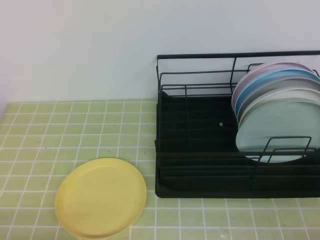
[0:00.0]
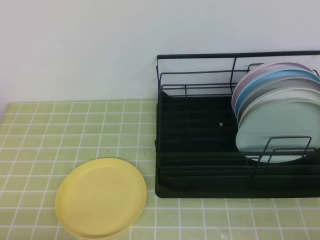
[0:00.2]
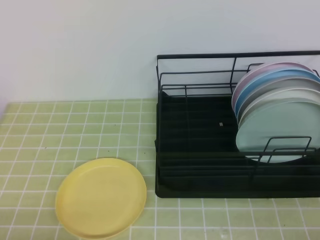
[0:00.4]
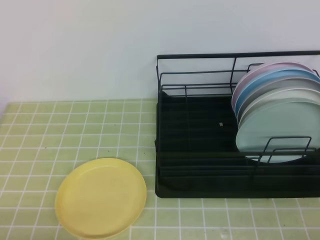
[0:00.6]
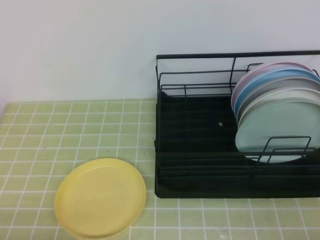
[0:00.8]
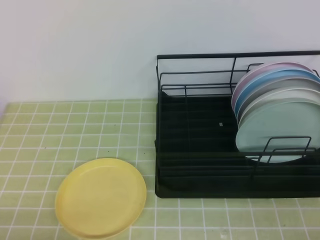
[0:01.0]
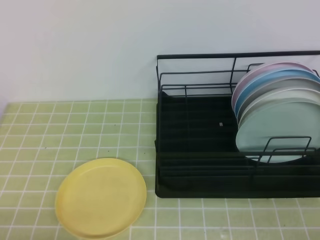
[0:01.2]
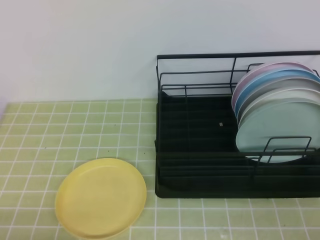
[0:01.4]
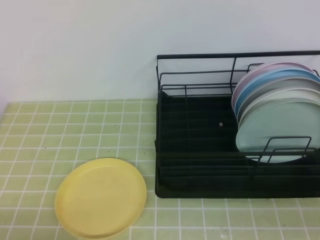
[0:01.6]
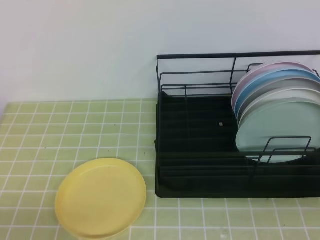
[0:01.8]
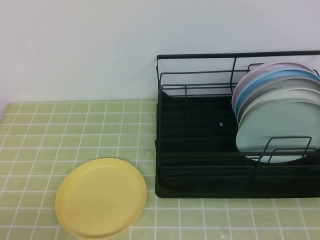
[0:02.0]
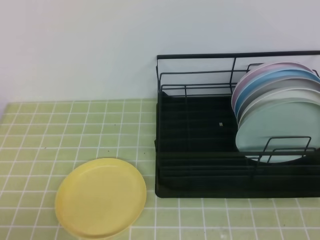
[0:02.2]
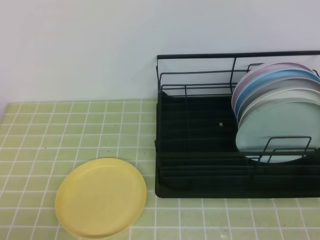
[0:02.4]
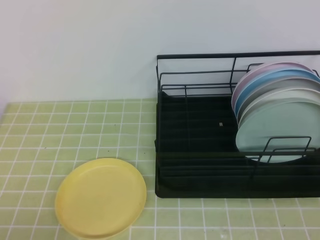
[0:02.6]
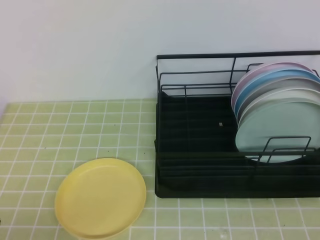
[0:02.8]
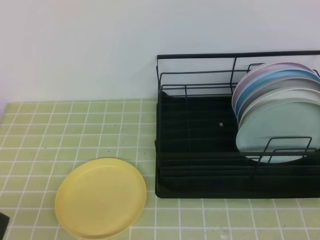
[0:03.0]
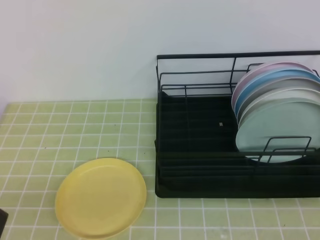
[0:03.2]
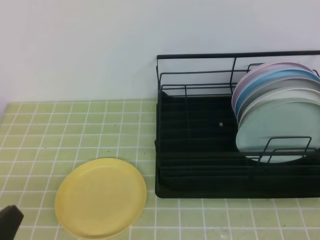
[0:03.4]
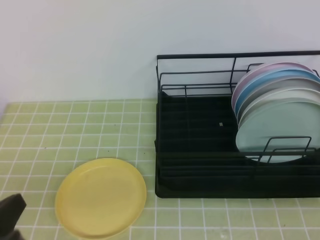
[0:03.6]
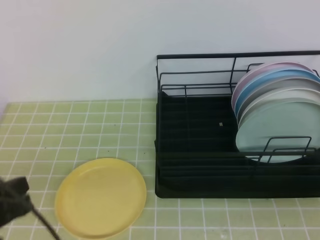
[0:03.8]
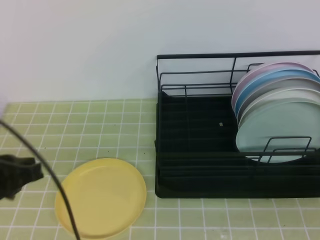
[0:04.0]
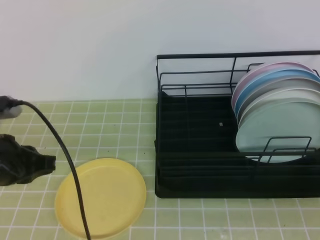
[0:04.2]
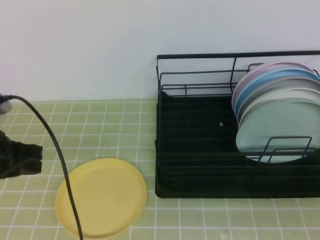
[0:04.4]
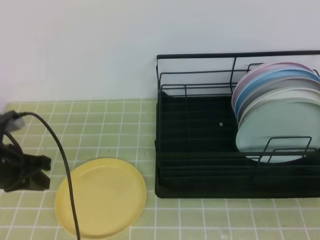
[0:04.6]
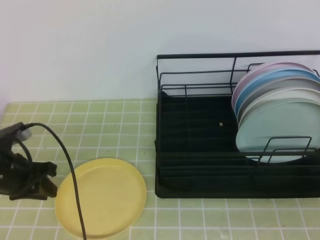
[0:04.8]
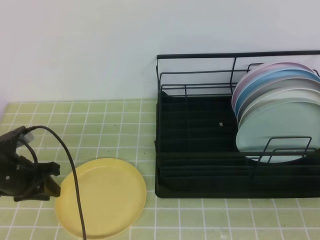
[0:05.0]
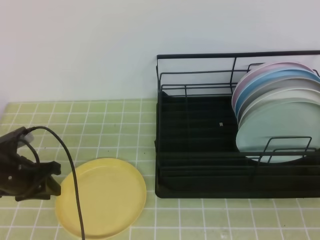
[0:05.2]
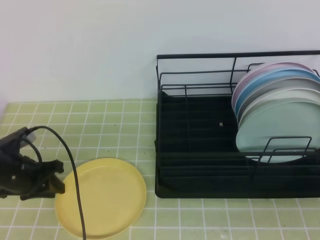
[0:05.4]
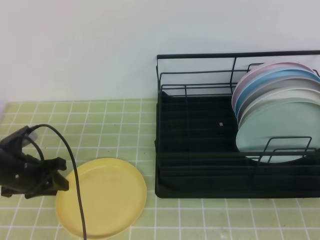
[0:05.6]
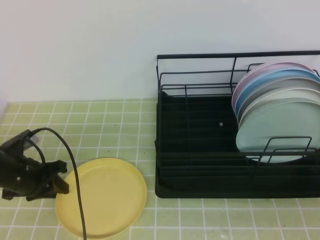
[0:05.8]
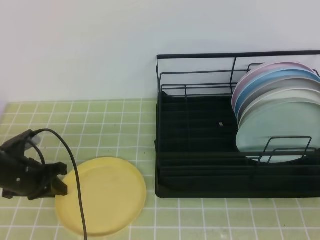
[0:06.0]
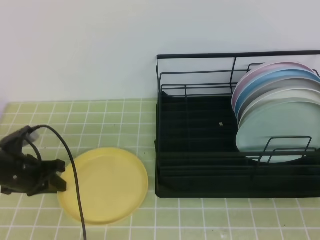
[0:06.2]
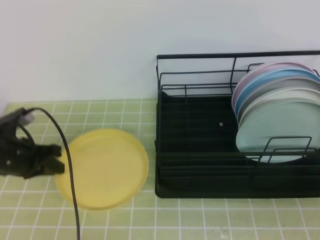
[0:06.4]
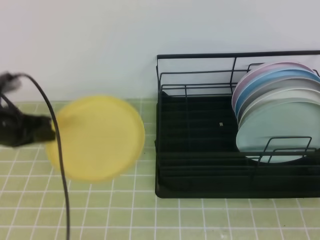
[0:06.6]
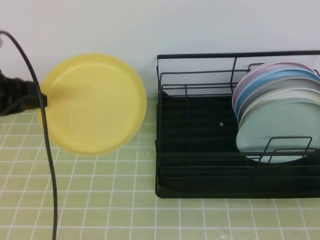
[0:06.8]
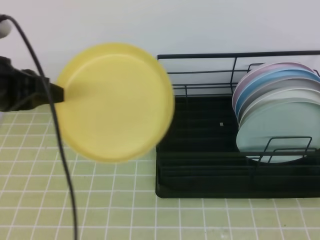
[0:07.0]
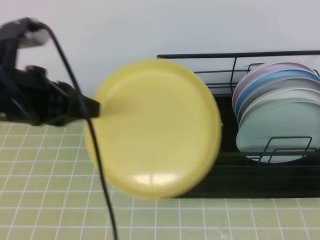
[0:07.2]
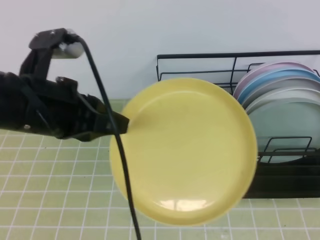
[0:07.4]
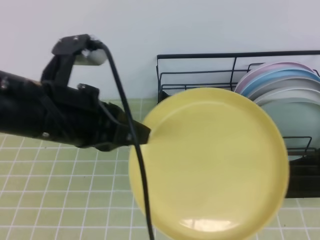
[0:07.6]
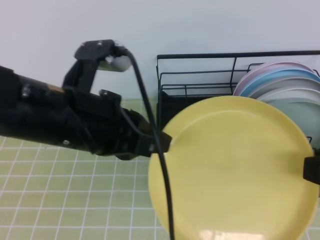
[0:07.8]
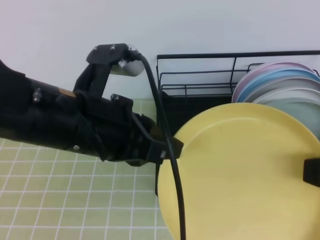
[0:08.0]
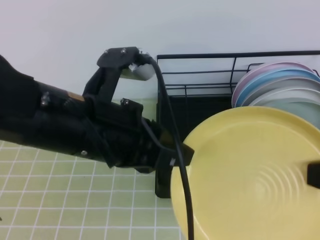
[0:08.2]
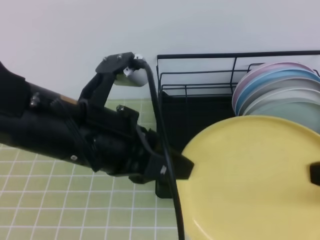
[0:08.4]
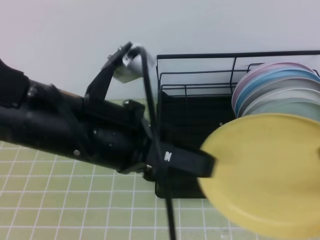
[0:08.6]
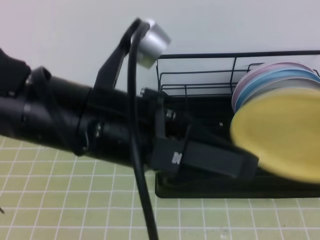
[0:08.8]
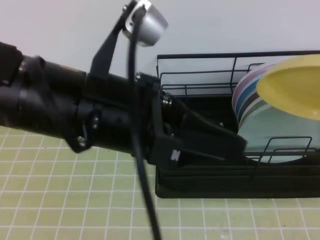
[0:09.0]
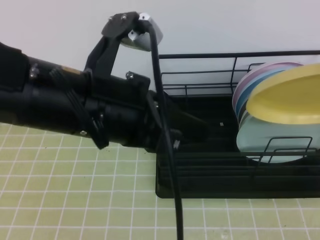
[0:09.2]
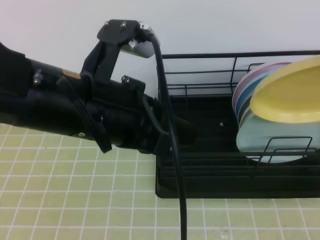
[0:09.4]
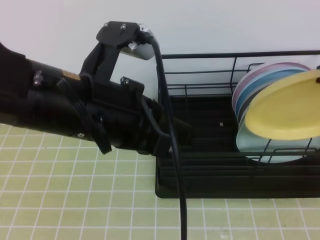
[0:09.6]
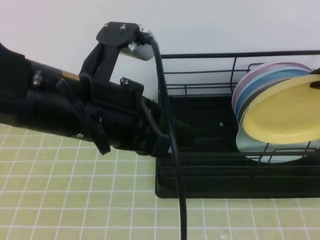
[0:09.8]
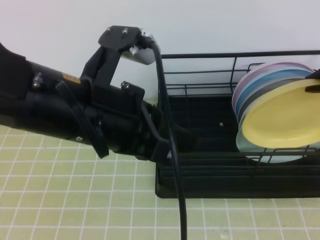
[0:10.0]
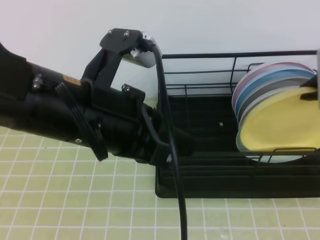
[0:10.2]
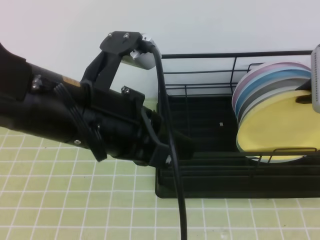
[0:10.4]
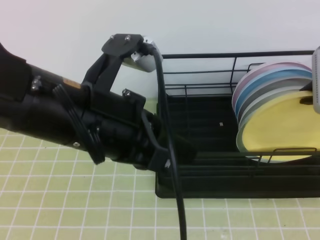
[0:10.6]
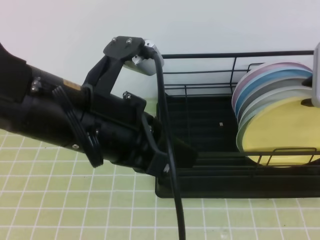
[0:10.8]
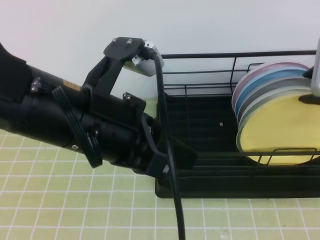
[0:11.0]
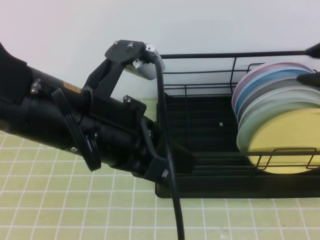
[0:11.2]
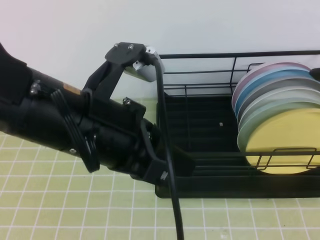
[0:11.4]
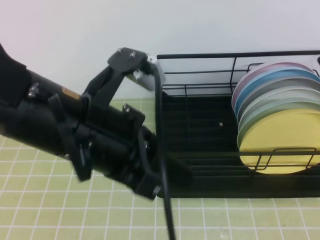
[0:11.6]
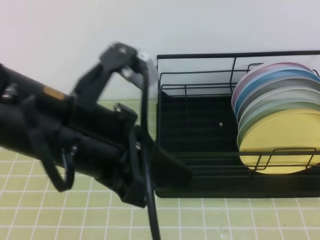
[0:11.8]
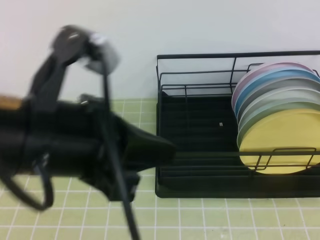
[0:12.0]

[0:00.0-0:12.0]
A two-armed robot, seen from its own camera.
0:03.0 to 0:04.4: The left gripper goes approximately 20 cm forward.
0:04.4 to 0:06.0: The left gripper heads downward and forward, covering about 15 cm, and opens its fingers.
0:06.0 to 0:07.6: The left gripper is displaced upward, to the right and backward by about 30 cm, and closes. Meanwhile the right gripper heads upward and forward, covering approximately 10 cm, and opens.
0:07.6 to 0:09.0: The left gripper travels to the right by some 5 cm, and opens up; the right gripper shifts some 5 cm forward, and closes.
0:09.0 to 0:10.4: The left gripper closes. Meanwhile the right gripper is displaced forward by some 10 cm.
0:10.4 to 0:12.0: The right gripper heads backward and upward, covering about 20 cm, and opens, then closes again.

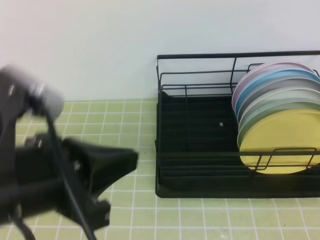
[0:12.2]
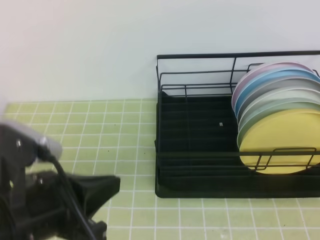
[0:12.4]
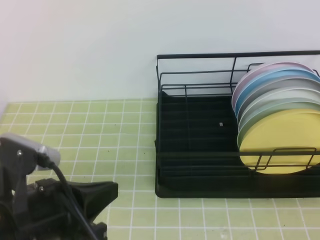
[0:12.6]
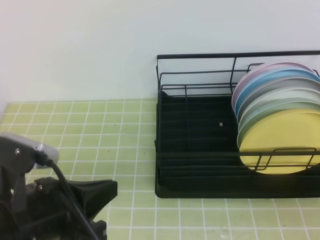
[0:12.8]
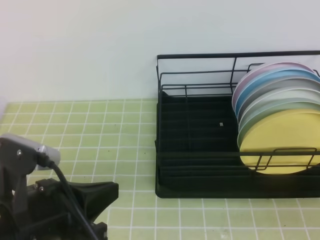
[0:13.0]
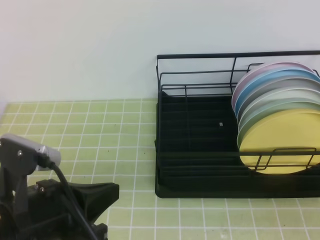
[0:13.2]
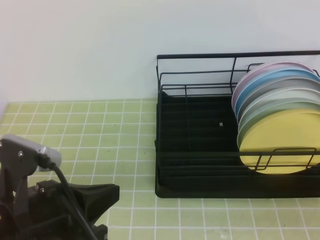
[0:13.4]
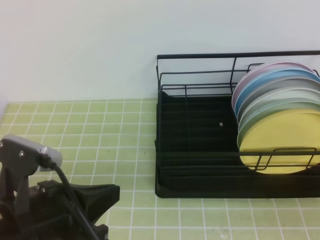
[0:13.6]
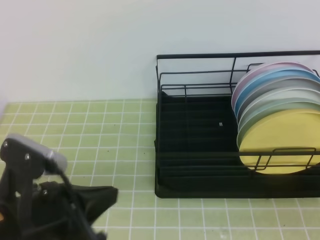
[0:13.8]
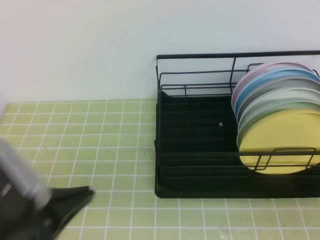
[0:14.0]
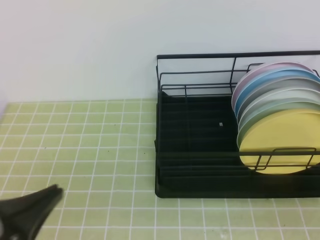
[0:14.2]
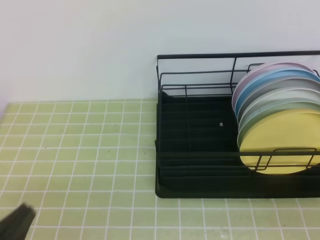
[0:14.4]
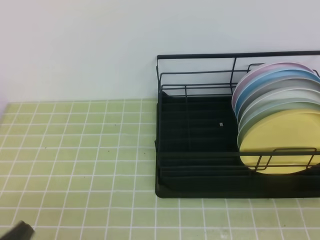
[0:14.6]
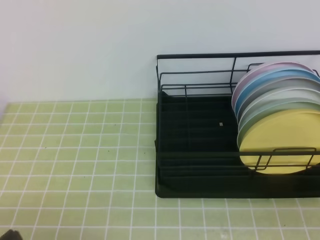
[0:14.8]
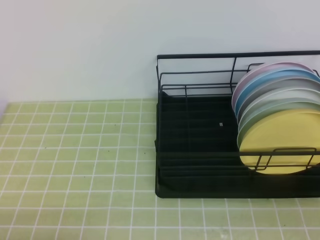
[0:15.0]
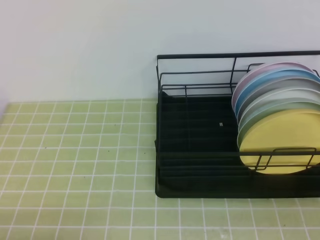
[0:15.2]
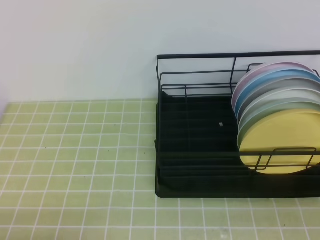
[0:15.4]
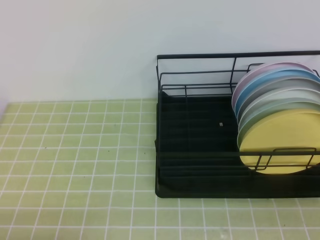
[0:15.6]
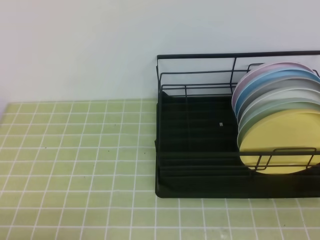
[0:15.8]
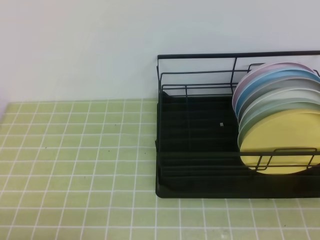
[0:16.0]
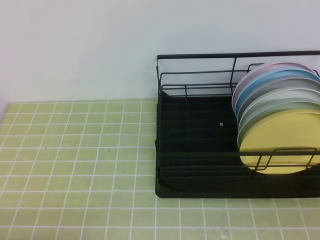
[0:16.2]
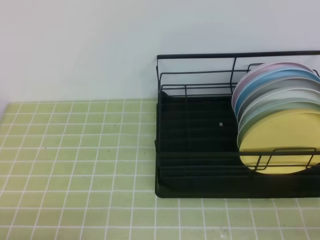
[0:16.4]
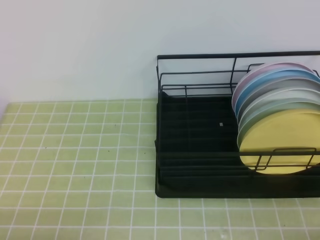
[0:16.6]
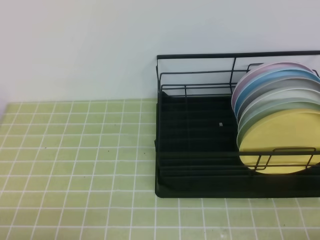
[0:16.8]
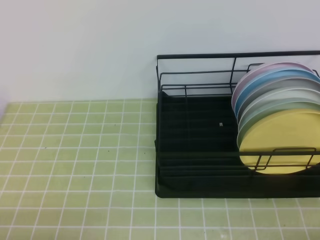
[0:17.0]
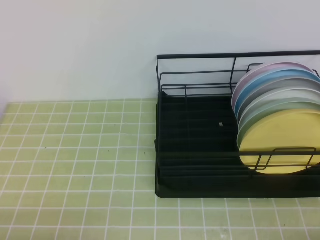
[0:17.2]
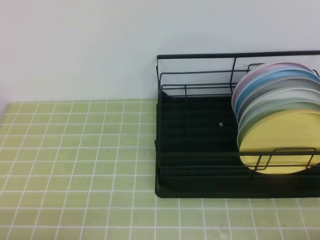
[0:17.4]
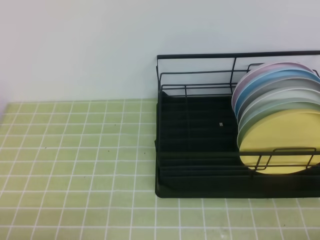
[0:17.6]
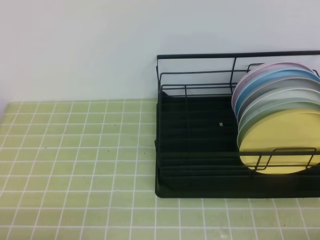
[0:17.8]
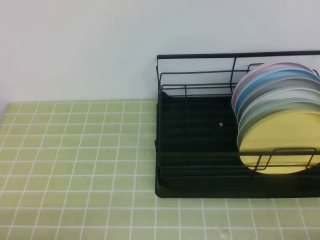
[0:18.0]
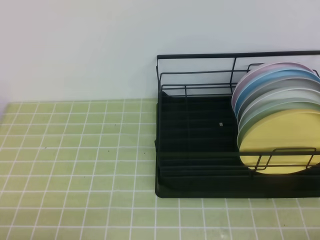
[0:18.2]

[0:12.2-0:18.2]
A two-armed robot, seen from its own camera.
0:12.2 to 0:13.8: The left gripper goes some 10 cm downward. Meanwhile the right gripper heads downward, covering roughly 15 cm.
0:13.8 to 0:15.2: The left gripper moves downward, to the left and backward, some 15 cm.
0:16.6 to 0:18.2: The two grippers keep their place.
